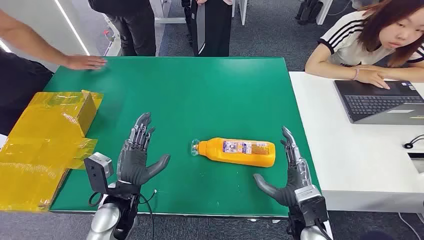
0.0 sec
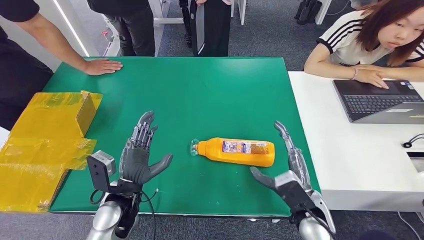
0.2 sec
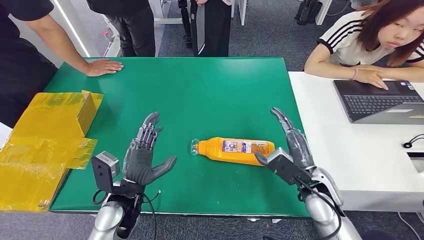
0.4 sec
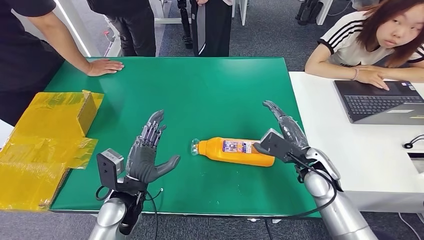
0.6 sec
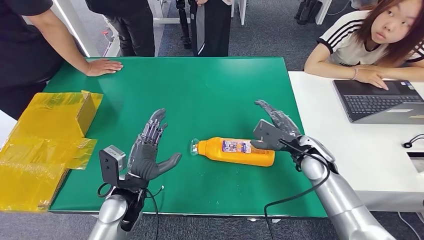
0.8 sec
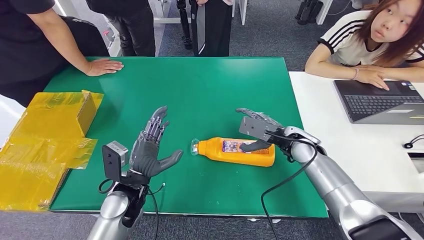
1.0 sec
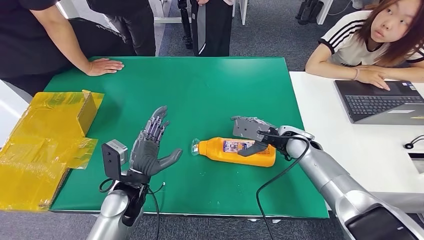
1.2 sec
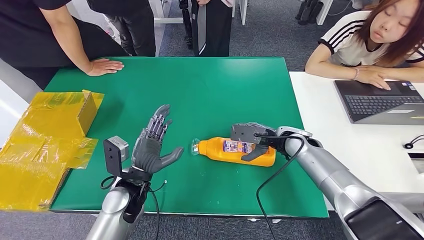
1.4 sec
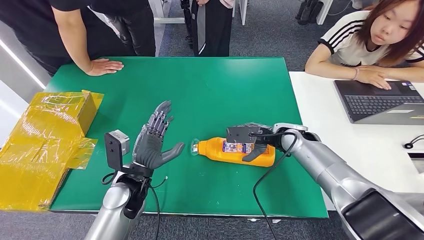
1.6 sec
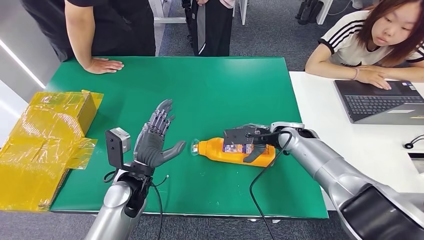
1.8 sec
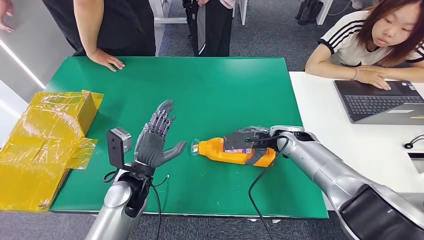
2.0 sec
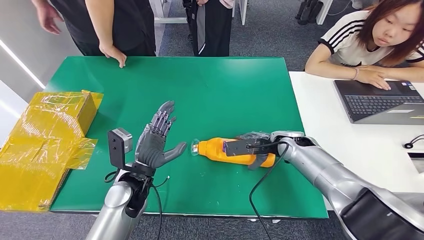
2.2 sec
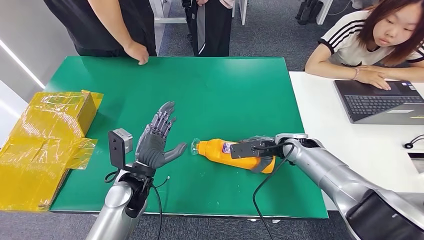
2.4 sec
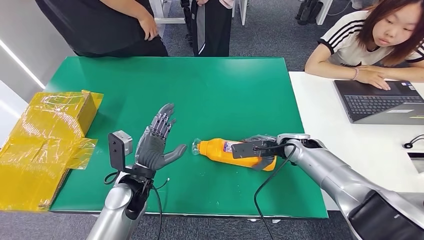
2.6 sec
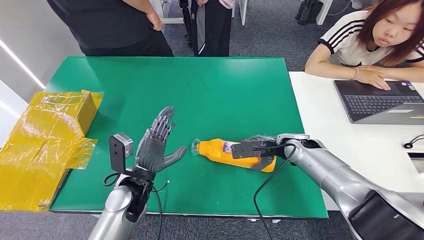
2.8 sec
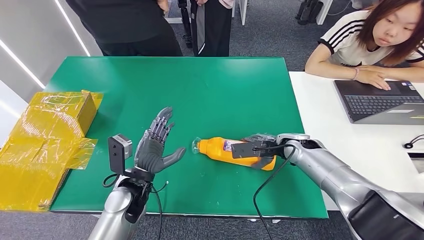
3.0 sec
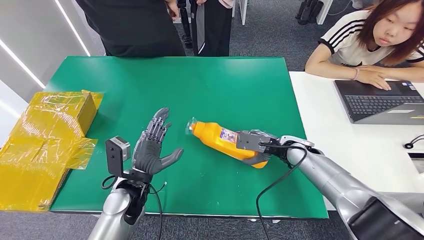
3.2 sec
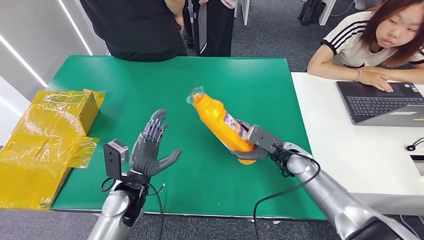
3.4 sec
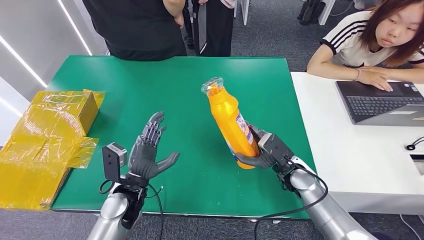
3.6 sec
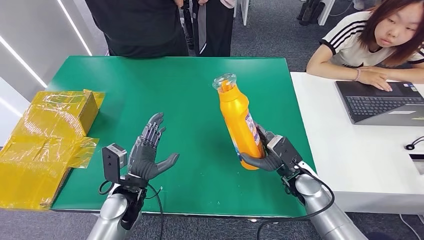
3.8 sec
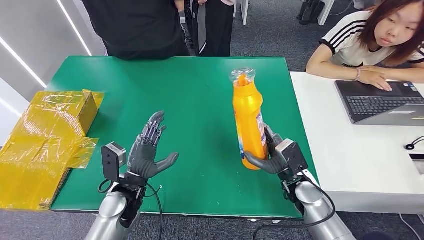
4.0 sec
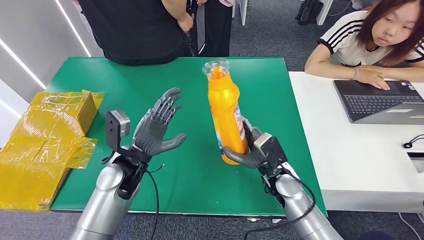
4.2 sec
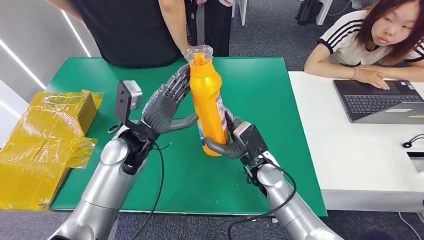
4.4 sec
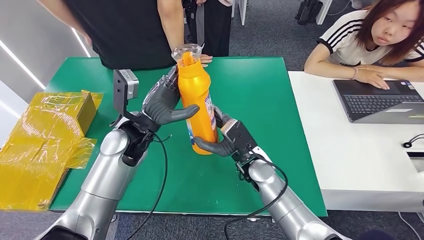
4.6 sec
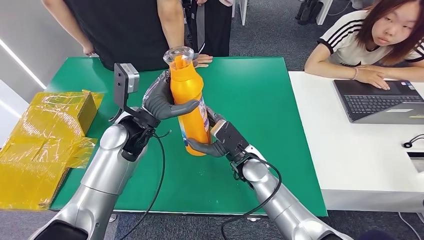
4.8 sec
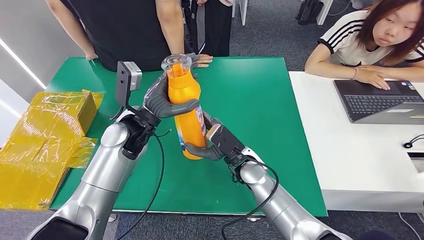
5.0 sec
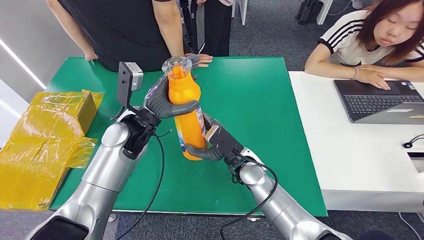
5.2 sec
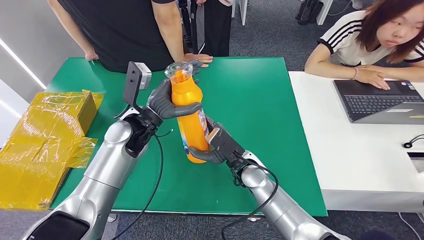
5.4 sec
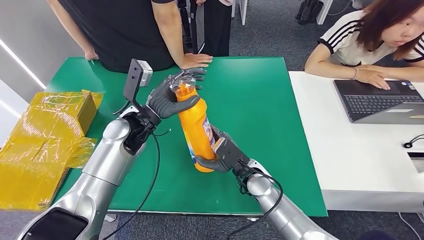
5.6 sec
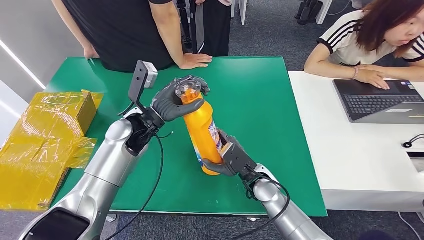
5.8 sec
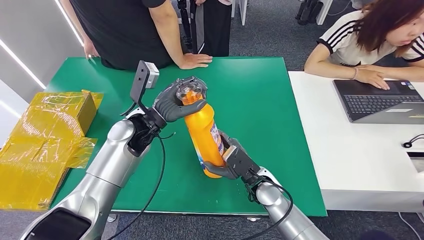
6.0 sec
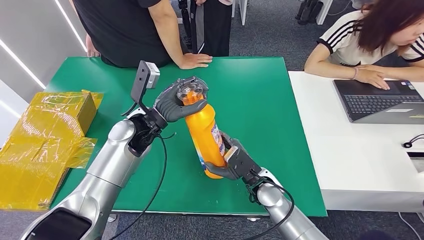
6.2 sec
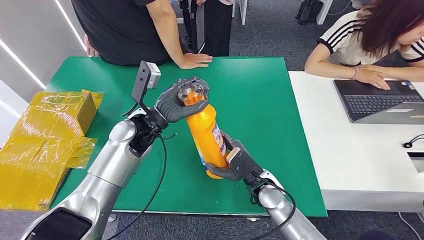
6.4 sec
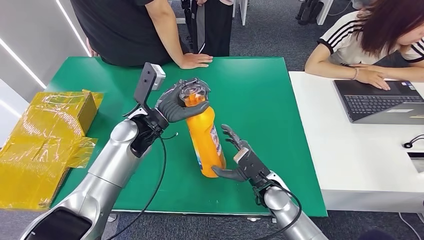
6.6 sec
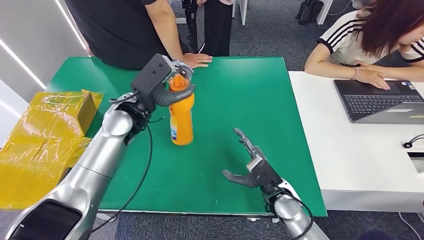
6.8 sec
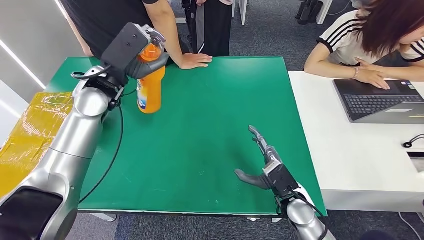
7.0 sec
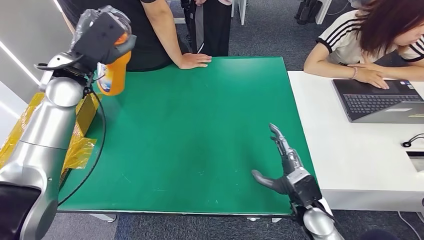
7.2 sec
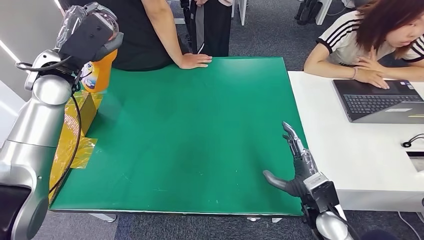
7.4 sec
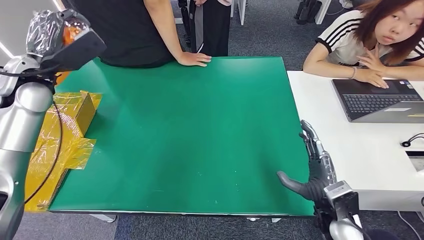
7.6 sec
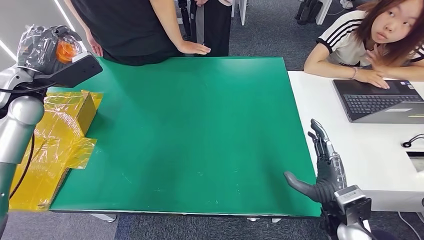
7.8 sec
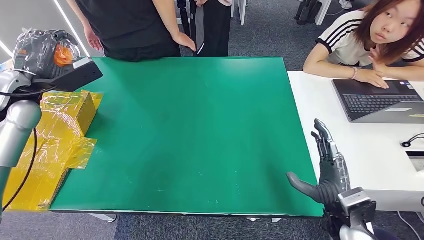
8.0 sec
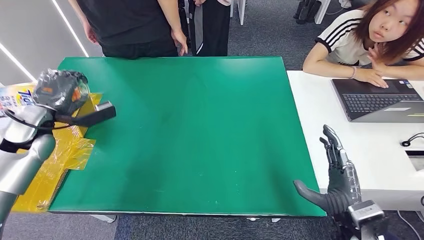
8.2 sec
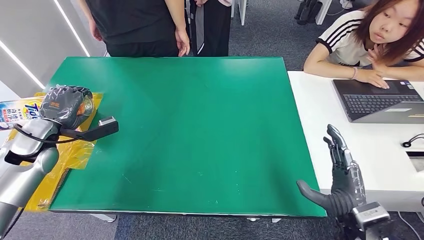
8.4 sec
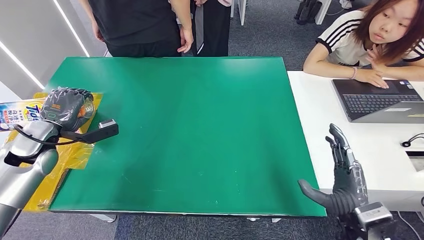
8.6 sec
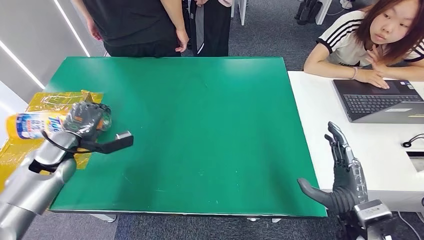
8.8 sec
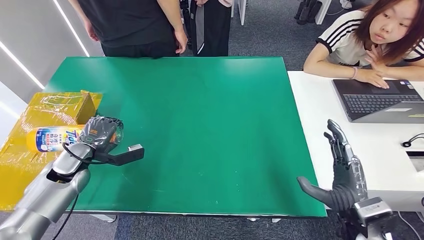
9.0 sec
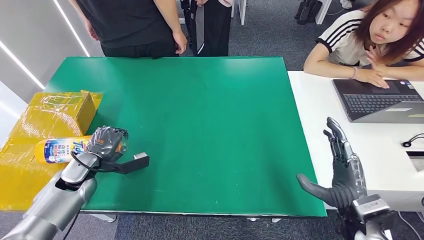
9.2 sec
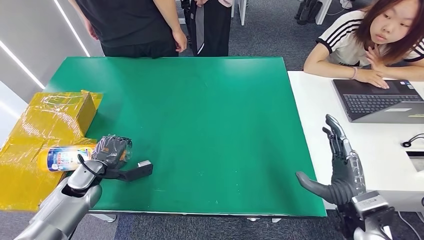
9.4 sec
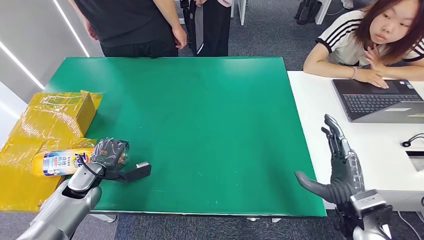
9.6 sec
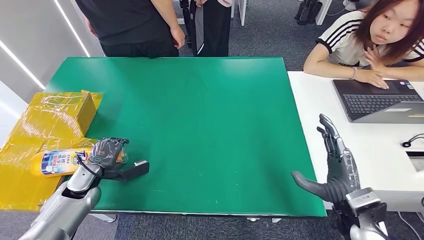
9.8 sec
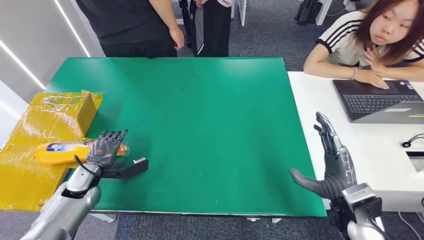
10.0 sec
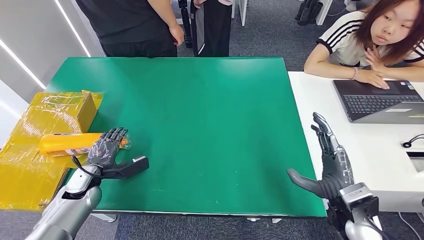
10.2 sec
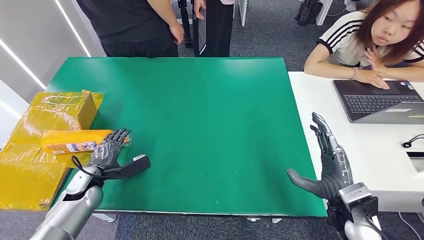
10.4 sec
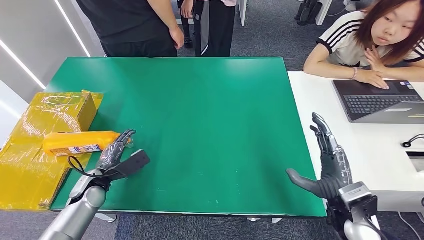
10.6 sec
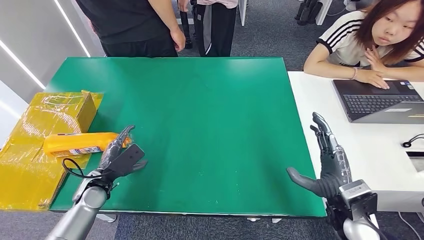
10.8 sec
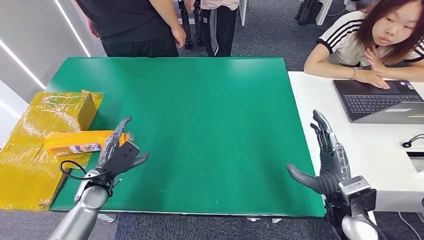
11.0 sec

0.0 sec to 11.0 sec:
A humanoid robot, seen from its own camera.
Step, 0.0 sec to 5.6 sec: Pick up the bottle from the table.
Step, 6.0 sec to 11.0 sec: Turn the bottle to the front side.
4.8 sec to 6.2 sec: The right hand heads downward, covering approximately 5 cm.
